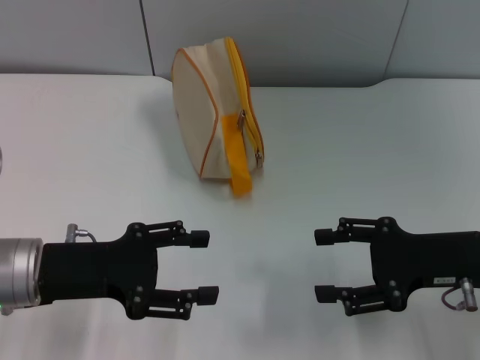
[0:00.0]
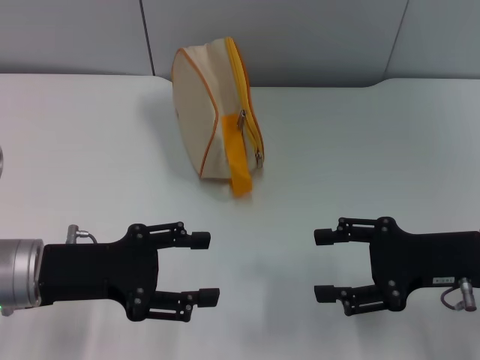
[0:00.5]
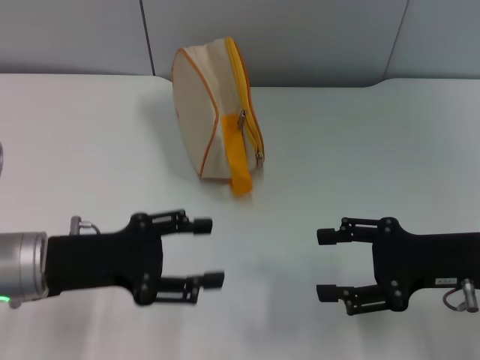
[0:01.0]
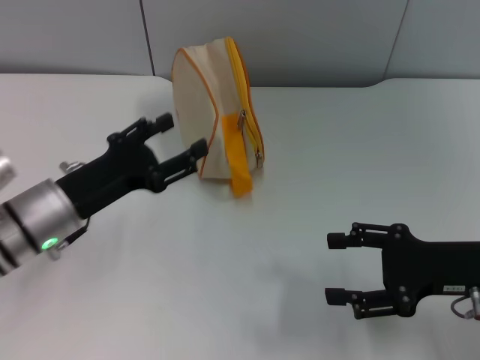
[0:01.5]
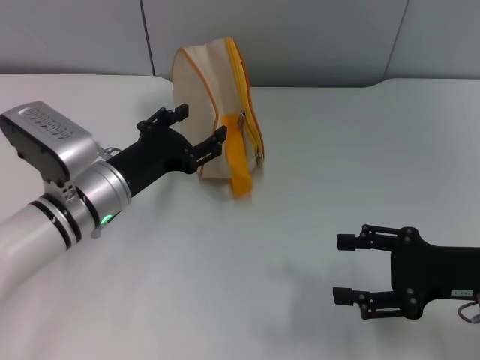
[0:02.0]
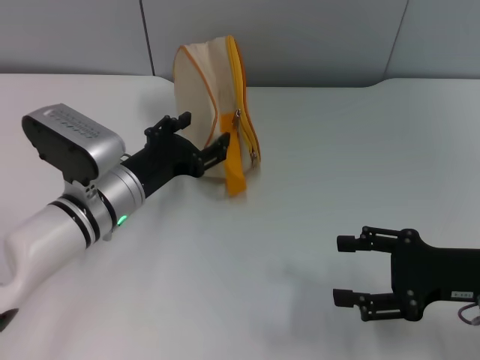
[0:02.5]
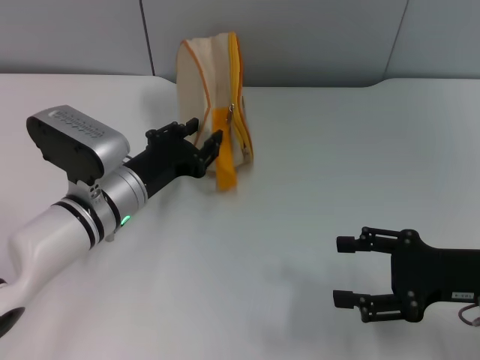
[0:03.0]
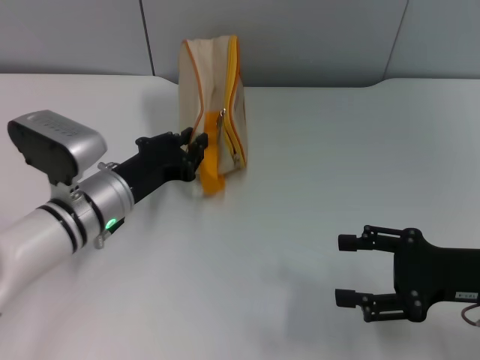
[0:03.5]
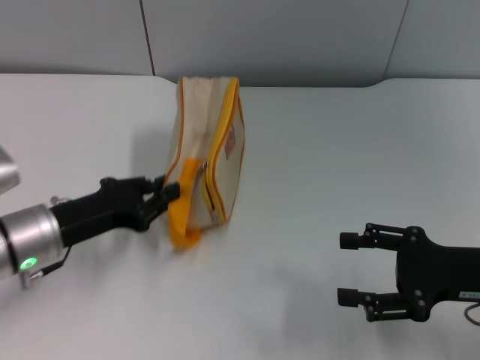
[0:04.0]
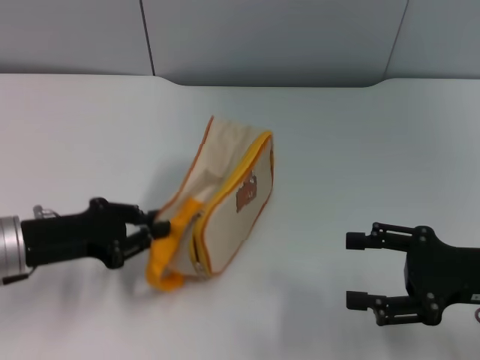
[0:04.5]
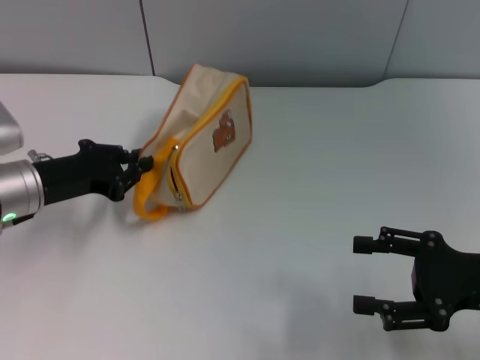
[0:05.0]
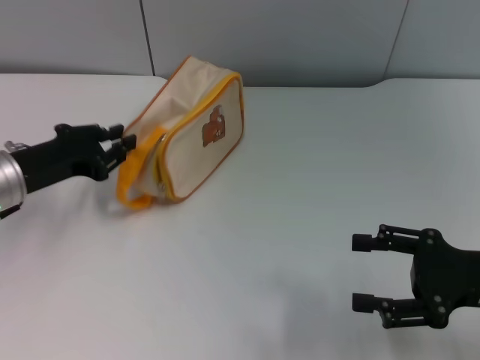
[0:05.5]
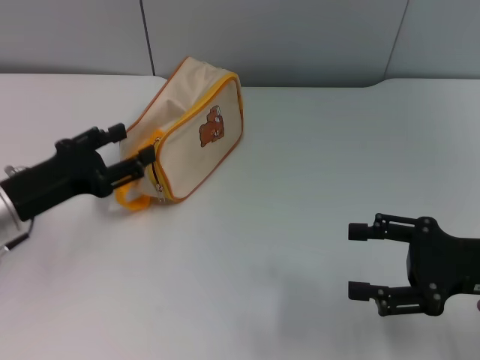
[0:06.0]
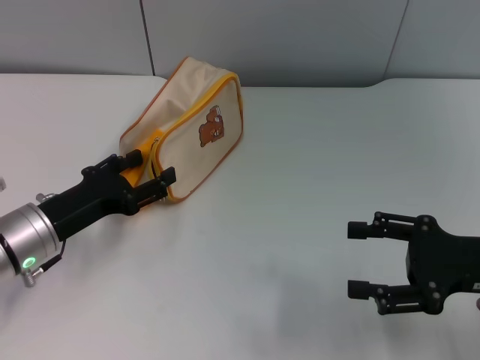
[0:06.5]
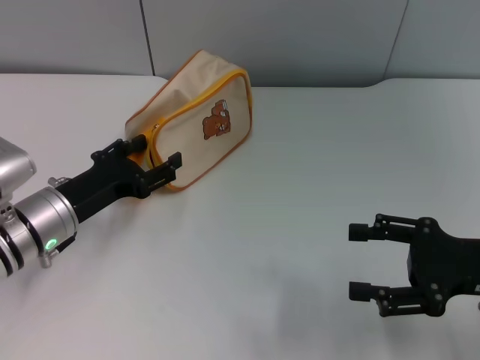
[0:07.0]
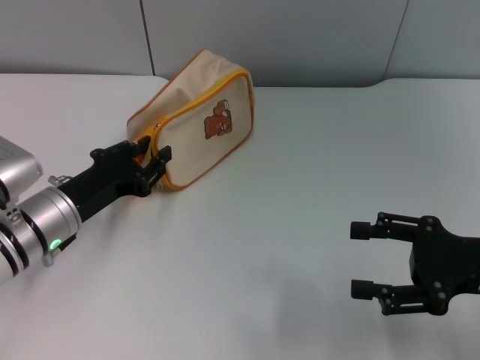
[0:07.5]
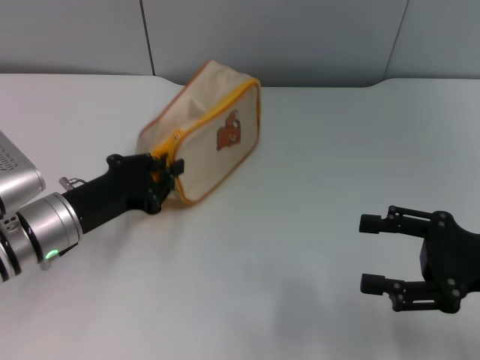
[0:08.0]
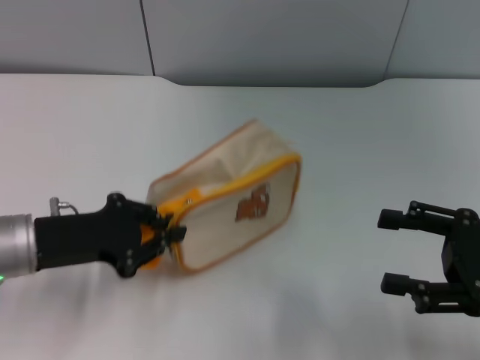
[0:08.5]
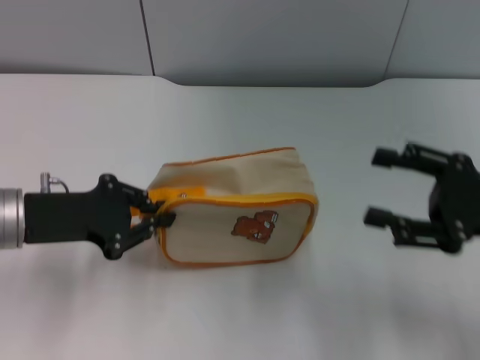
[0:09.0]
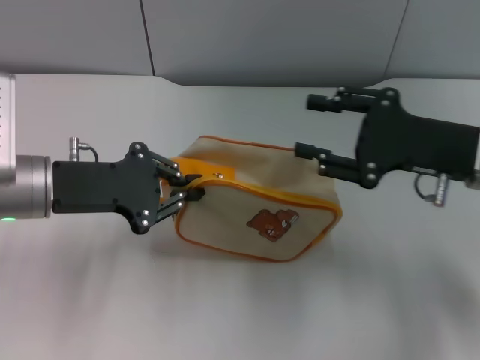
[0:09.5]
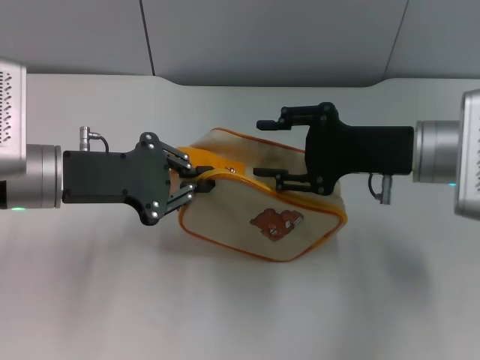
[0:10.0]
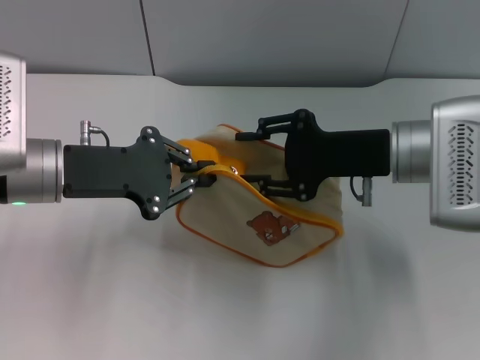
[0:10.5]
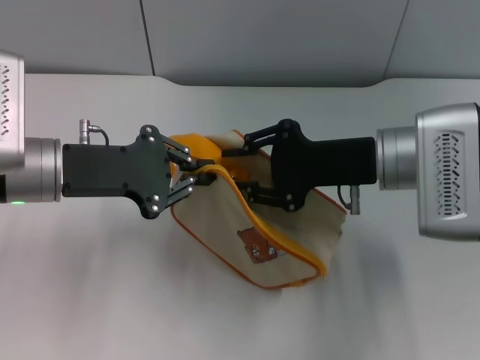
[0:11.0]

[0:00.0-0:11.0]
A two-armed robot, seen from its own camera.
Step, 0:00.0 to 0:09.0: Pick up the bag with left gripper.
0:00.0 to 0:02.0: The left gripper goes roughly 10 cm forward and to the right.
0:02.0 to 0:03.5: The left gripper closes.
0:03.5 to 0:05.5: The left gripper moves to the left, some 10 cm.
0:05.5 to 0:07.5: The left gripper moves to the right, about 5 cm, and opens.
0:07.5 to 0:09.0: The left gripper shifts roughly 5 cm upward, and closes up.
0:09.0 to 0:11.0: The left gripper shifts by some 5 cm. The right gripper heads to the left and forward, covering about 15 cm.

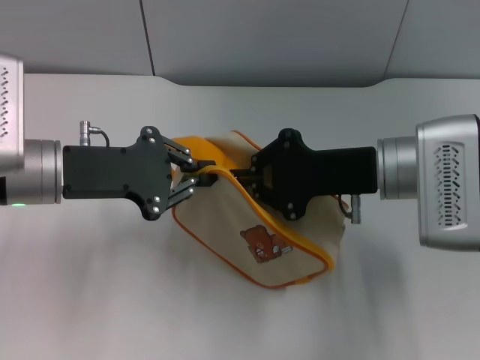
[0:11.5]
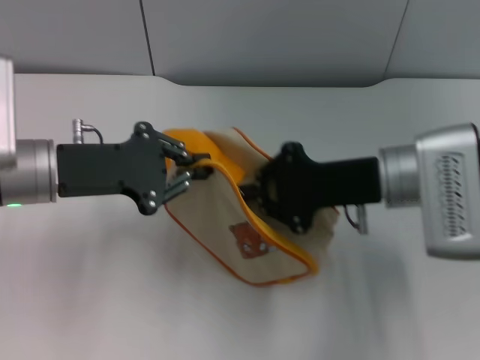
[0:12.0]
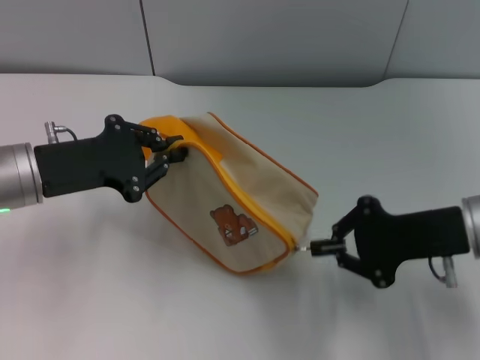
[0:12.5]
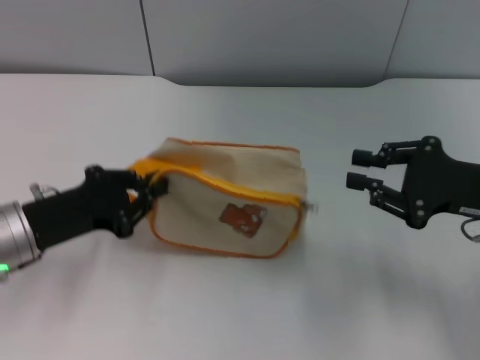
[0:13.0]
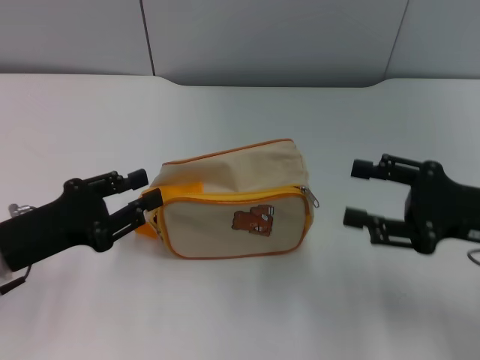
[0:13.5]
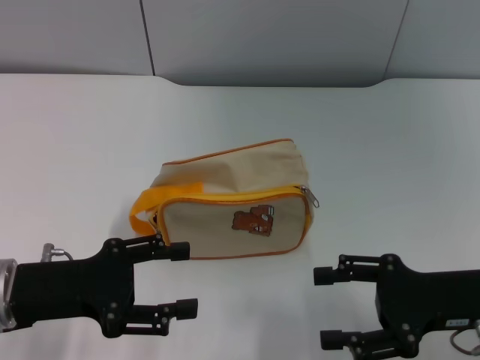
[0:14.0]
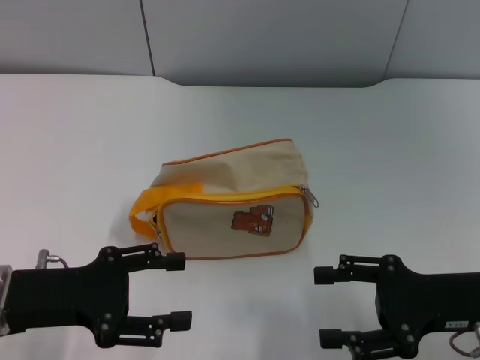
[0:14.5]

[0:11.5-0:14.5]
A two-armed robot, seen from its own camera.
Step, 0:13.0 to 0:13.5: Place the bag on the table with left gripper.
0:11.5 to 0:13.0: The left gripper heads downward, covering about 5 cm. Meanwhile the right gripper moves to the right, about 10 cm.
0:13.0 to 0:14.5: The right gripper is displaced backward by roughly 5 cm, and opens. The left gripper opens up.

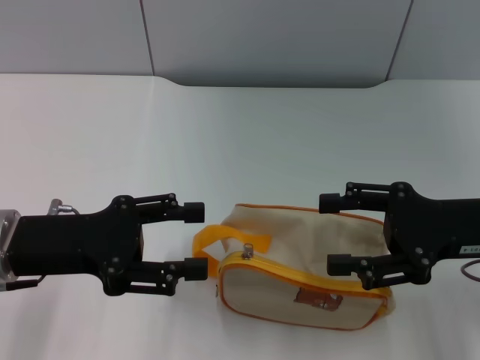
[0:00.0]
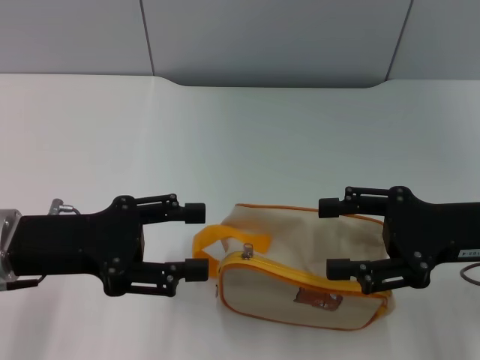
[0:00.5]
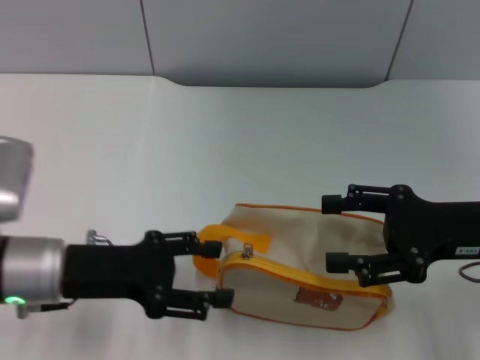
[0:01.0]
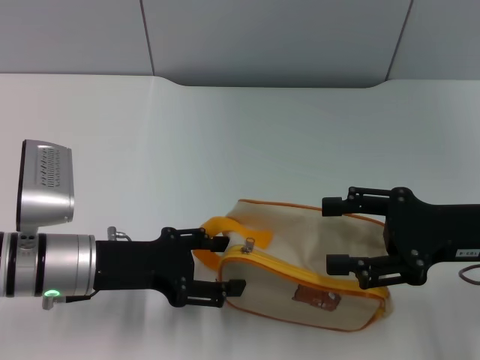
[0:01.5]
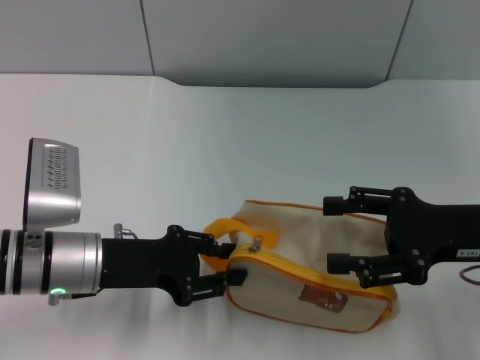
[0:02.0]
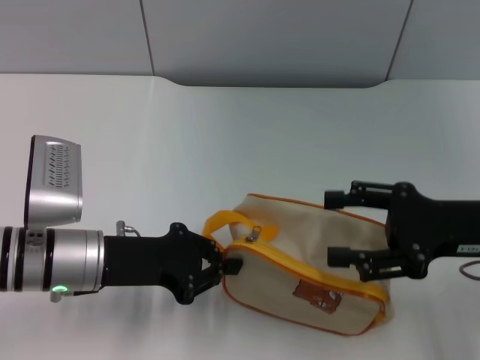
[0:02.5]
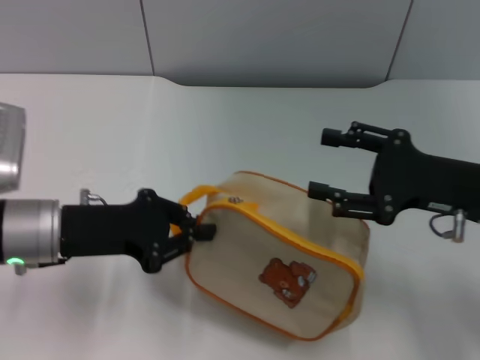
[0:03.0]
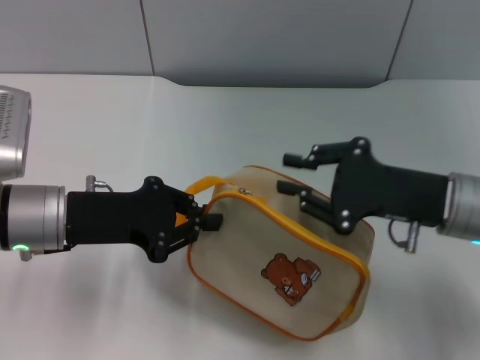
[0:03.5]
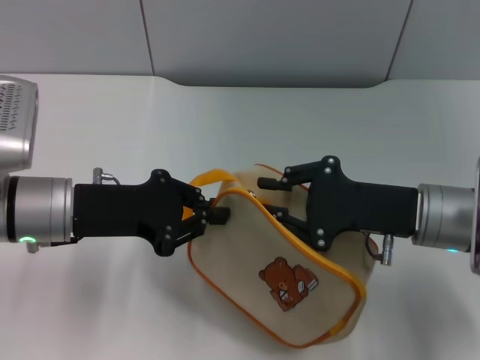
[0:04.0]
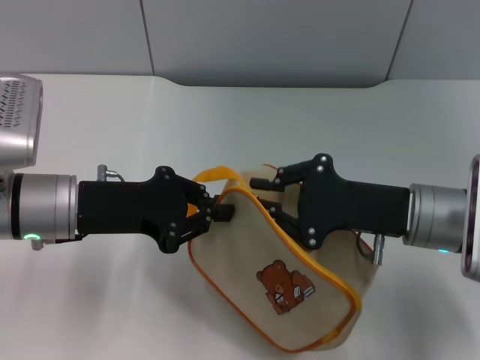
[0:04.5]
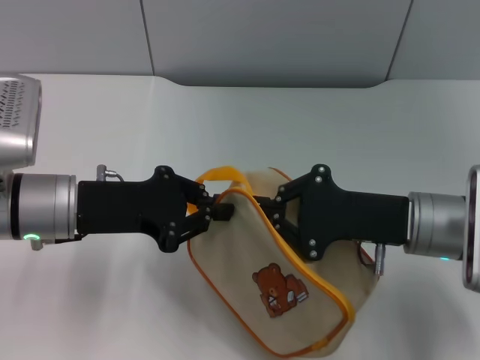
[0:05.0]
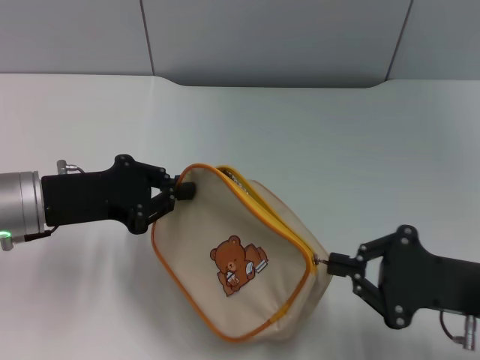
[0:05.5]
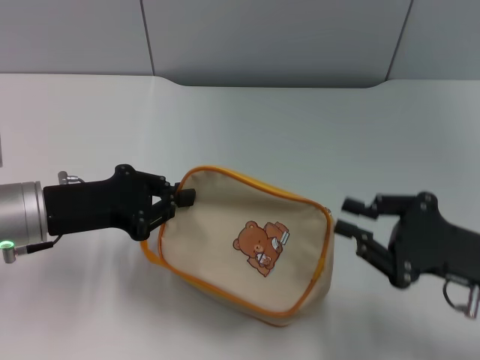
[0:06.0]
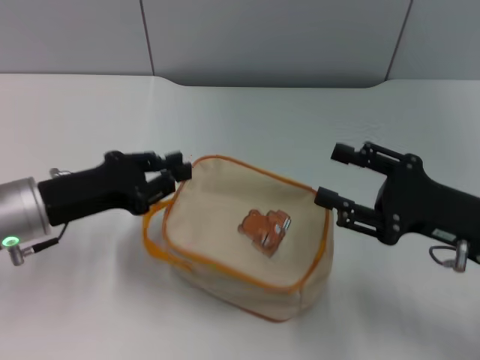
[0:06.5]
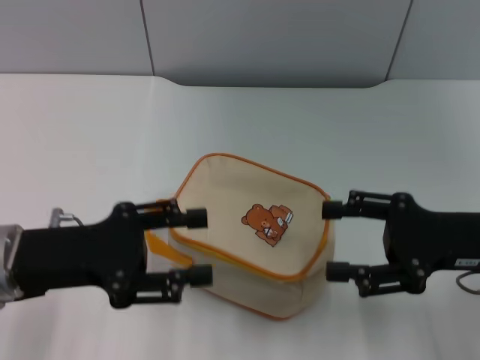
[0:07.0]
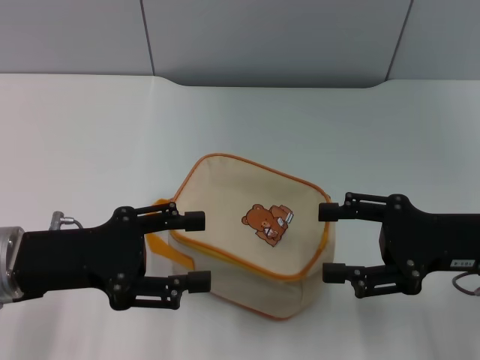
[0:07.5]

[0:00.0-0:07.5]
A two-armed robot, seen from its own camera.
Step, 0:00.0 to 0:03.0: Pick up the bag with left gripper.
Step, 0:03.5 to 0:05.5: Unzip the zipper of bag with right gripper.
0:00.0 to 0:02.0: The left gripper heads downward, covering about 5 cm.
0:02.0 to 0:04.0: The left gripper moves some 5 cm, and closes up, while the right gripper heads to the left, covering about 5 cm, and closes up.
0:04.0 to 0:05.5: The right gripper moves backward and to the right, roughly 10 cm.
0:05.5 to 0:07.5: The right gripper shifts by approximately 5 cm, and opens up, while the left gripper heads backward, covering approximately 5 cm, and opens.

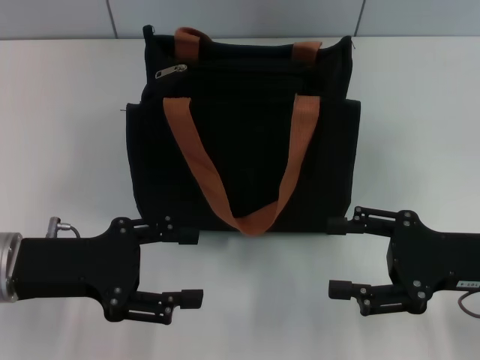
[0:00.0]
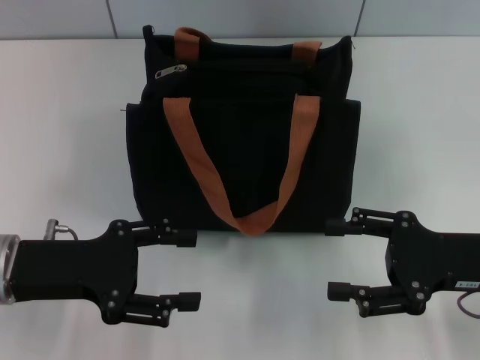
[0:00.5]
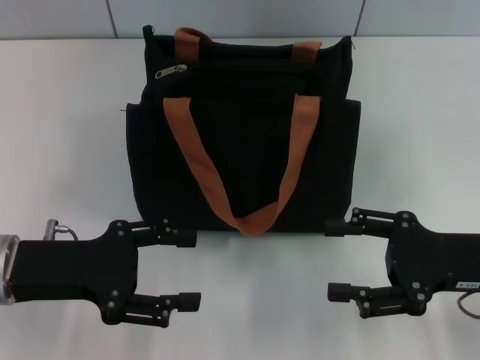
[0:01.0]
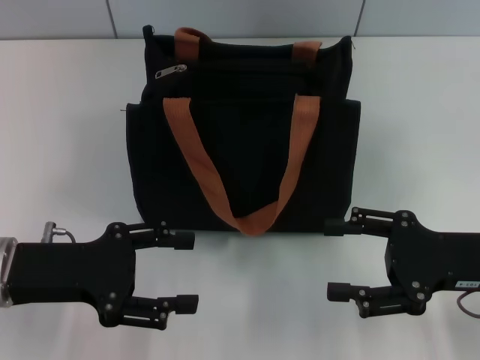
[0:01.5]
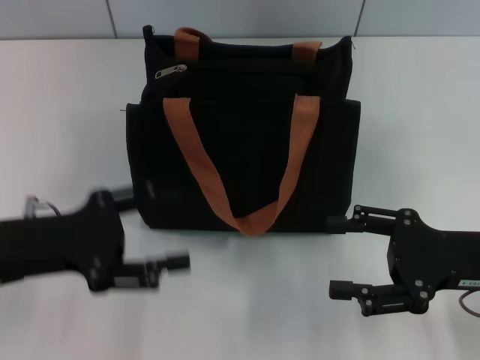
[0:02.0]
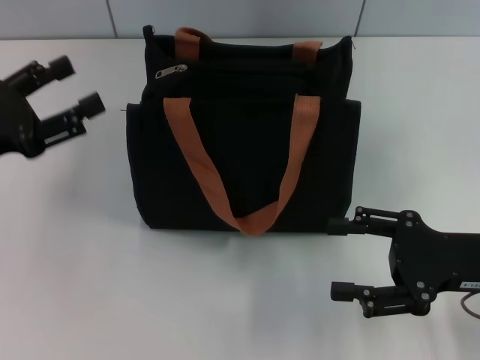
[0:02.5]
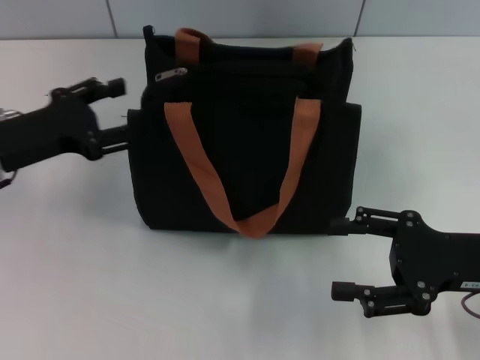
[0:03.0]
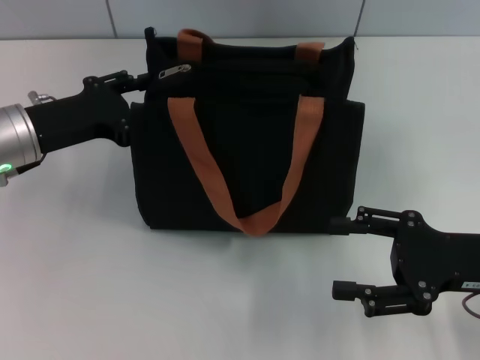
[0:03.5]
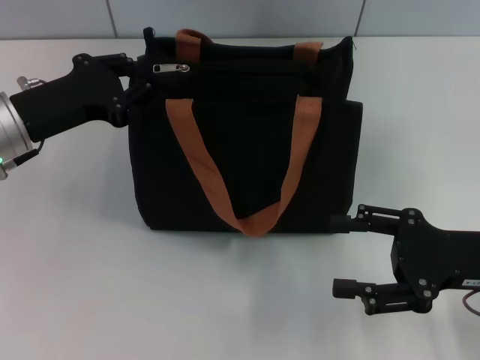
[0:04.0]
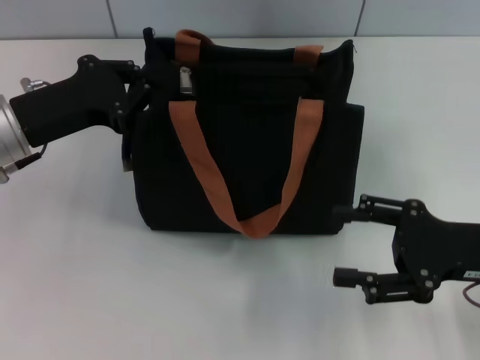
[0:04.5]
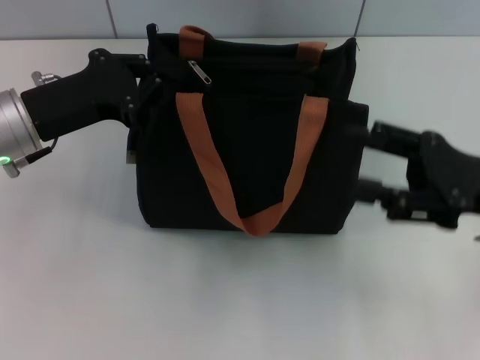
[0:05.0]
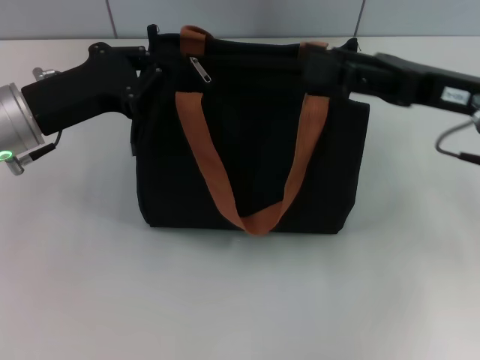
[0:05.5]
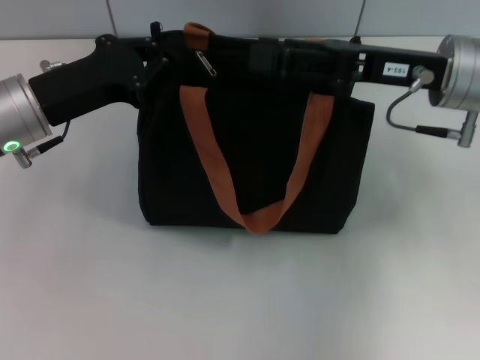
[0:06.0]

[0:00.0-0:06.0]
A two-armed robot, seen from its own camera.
0:00.0 to 0:02.0: The grippers make only small movements.
0:02.0 to 0:04.0: The left gripper travels forward by some 10 cm, and closes up.
0:04.0 to 0:06.0: The left gripper closes. Meanwhile the right gripper travels forward, upward and to the left by roughly 15 cm.
